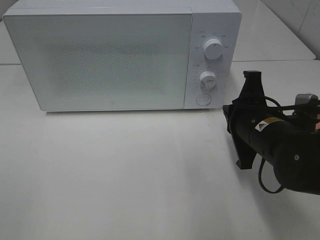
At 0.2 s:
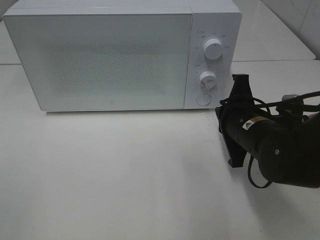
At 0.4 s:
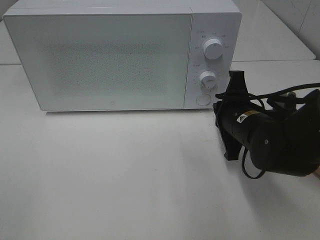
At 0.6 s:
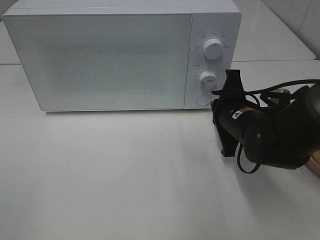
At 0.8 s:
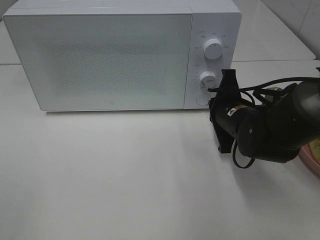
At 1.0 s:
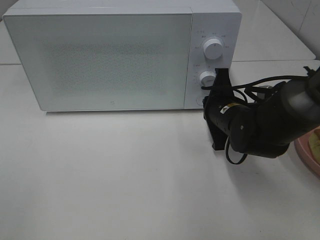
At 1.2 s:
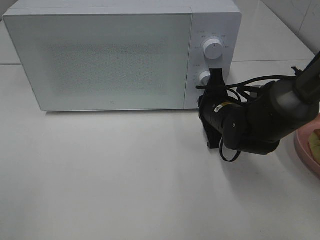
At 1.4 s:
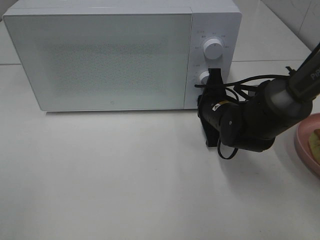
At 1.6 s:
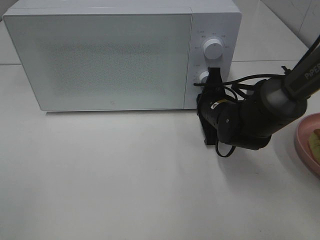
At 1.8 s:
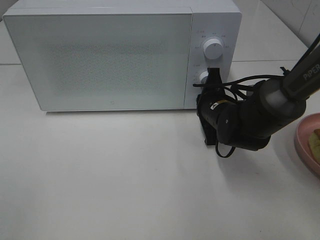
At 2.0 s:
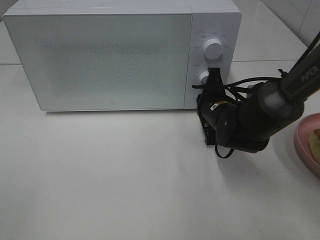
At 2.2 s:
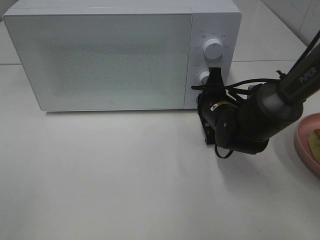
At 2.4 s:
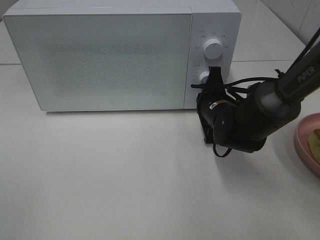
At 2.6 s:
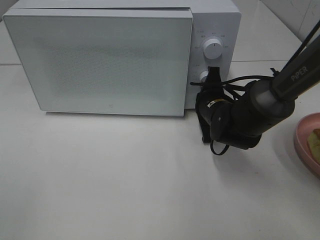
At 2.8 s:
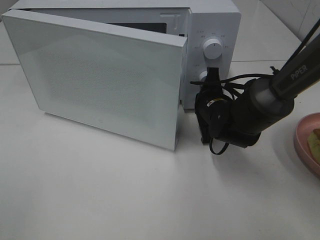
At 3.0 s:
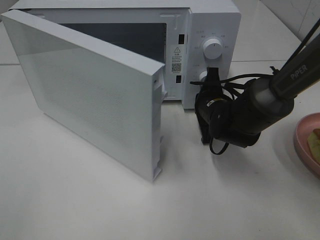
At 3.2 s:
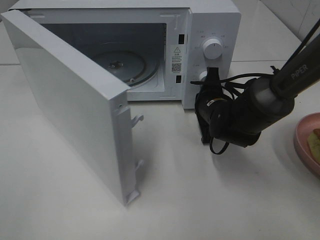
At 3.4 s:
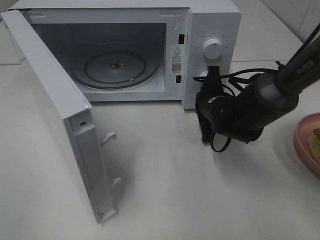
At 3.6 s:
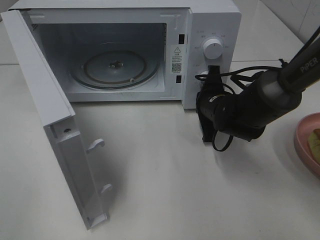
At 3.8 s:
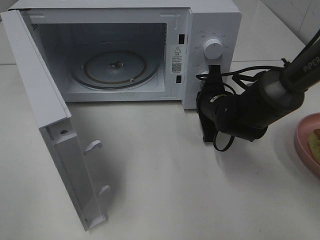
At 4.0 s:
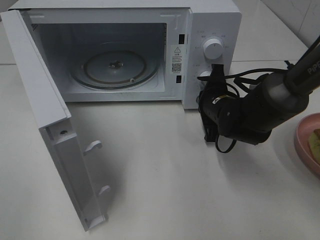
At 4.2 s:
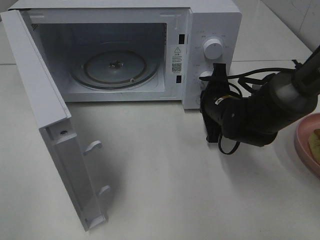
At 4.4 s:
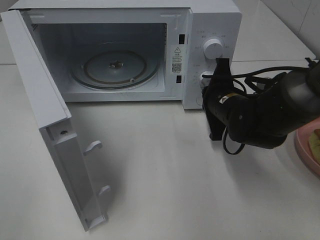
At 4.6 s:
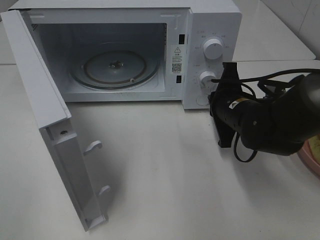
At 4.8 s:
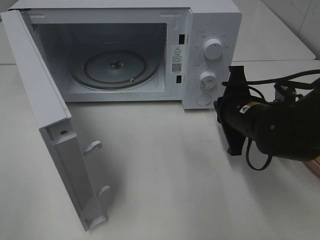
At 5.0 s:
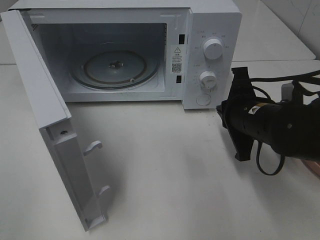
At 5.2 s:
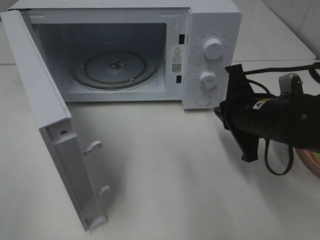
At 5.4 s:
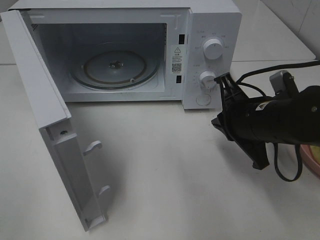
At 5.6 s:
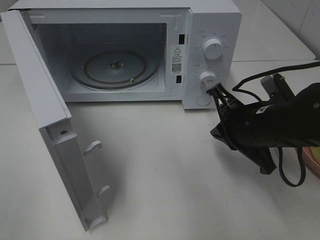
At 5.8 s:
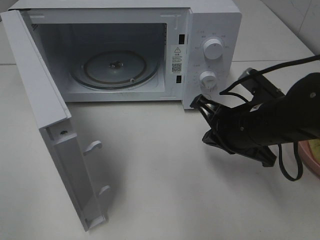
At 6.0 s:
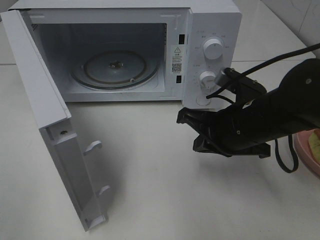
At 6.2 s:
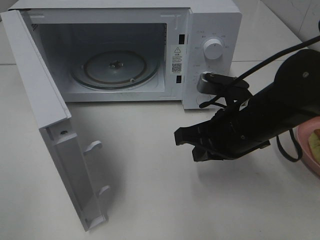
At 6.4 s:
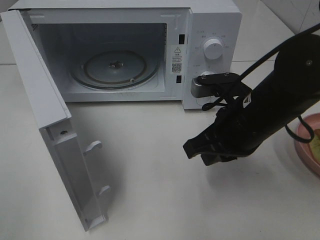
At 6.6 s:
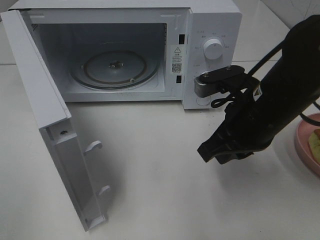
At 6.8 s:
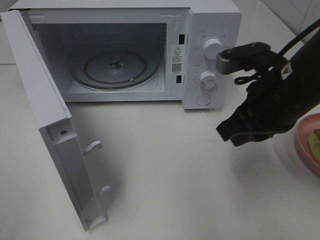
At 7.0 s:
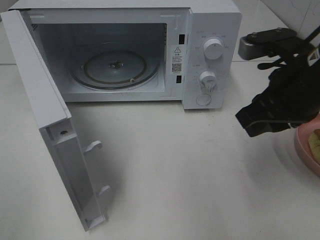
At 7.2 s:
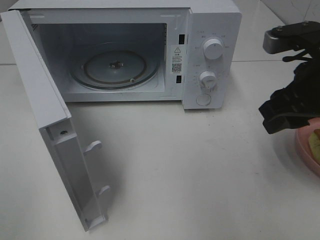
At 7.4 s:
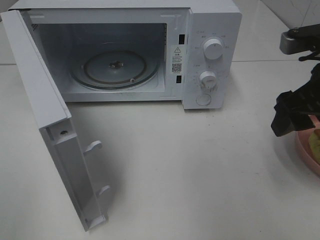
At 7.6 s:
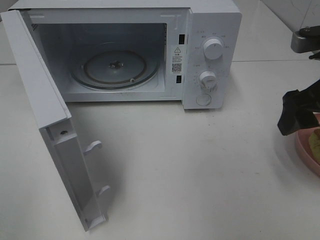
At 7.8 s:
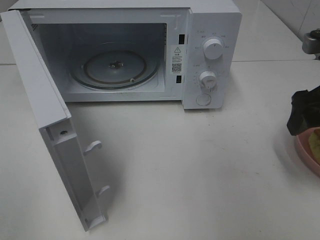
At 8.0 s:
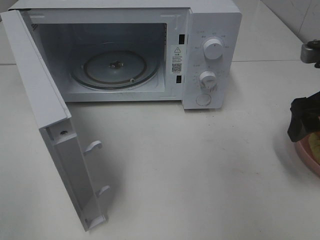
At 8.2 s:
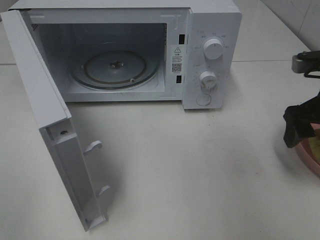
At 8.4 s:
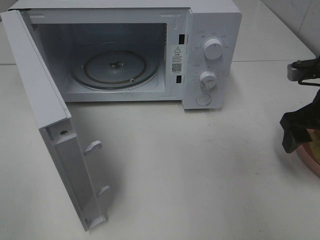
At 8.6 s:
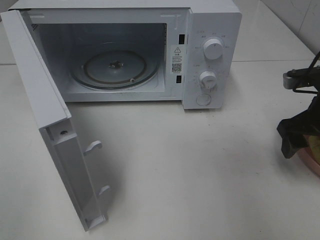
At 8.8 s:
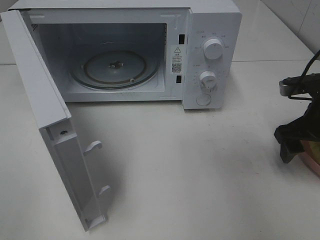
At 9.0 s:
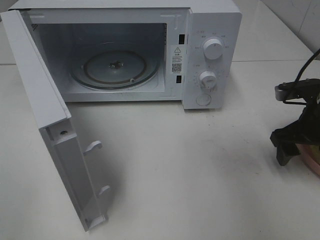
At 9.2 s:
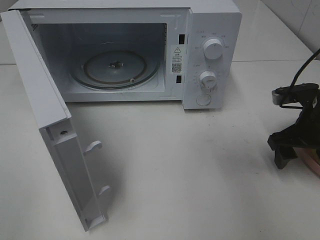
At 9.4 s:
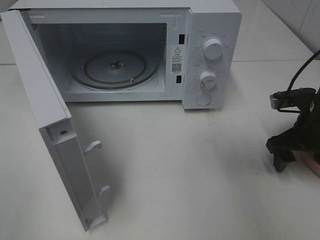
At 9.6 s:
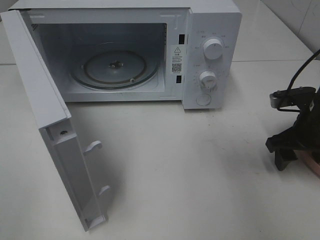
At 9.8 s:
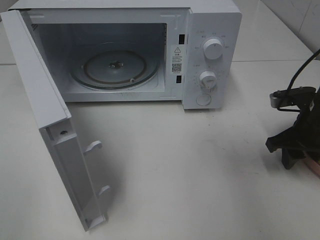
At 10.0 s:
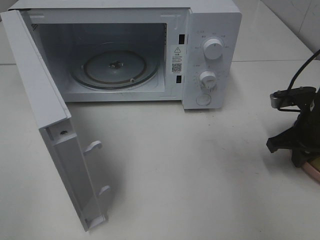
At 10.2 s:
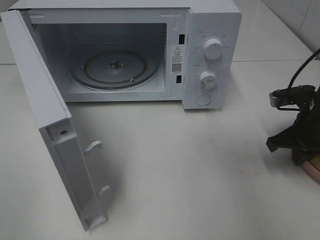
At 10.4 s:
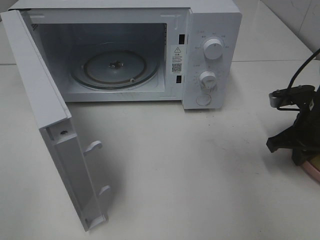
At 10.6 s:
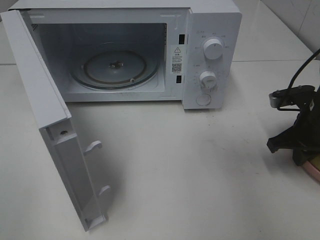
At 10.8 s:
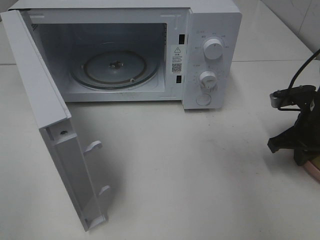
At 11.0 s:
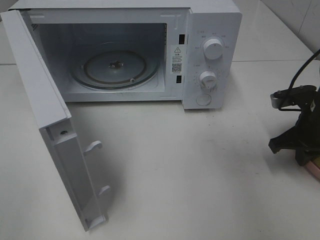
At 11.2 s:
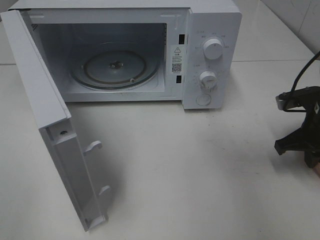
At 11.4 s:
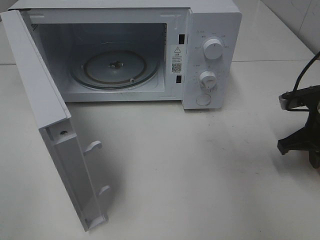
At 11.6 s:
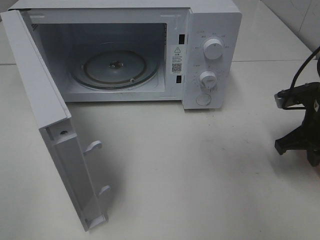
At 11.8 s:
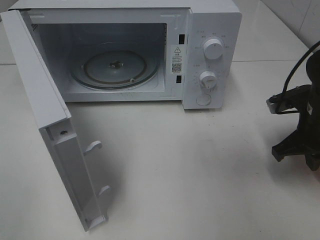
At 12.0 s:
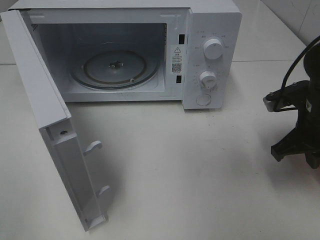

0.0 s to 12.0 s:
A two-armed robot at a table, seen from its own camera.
Task of the whole recording: Heat Sandwich.
Step, 0.0 to 4.6 s: Right hand: press the switch.
Step, 4.8 to 10.4 s: Right hand: grab the plate with the sandwich.
0.0 to 1.6 s: The right gripper goes approximately 10 cm forward.
4.4 to 6.0 s: The right gripper is displaced backward by some 10 cm.
6.0 to 7.6 s: The right gripper heads to the right and upward, covering approximately 15 cm, and opens.
7.6 to 9.0 s: The right gripper travels downward and forward by about 10 cm.
9.0 to 10.4 s: The right gripper closes up.
10.4 to 12.0 s: The right gripper ends up about 5 cm from where it was.

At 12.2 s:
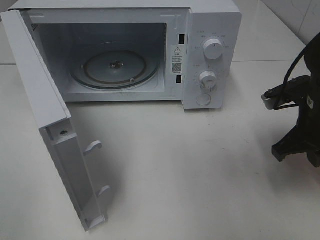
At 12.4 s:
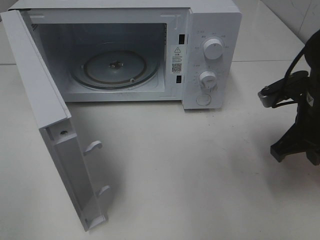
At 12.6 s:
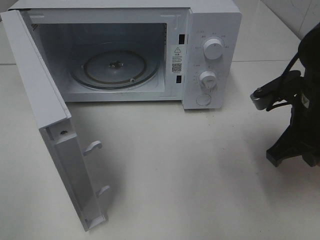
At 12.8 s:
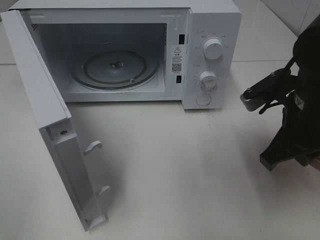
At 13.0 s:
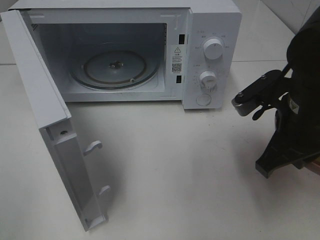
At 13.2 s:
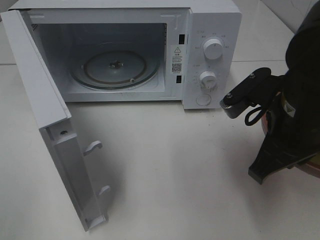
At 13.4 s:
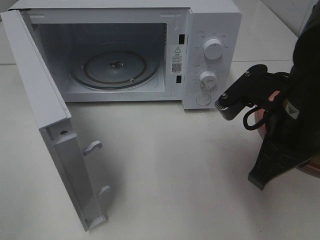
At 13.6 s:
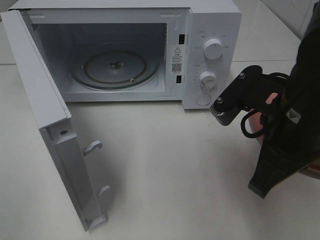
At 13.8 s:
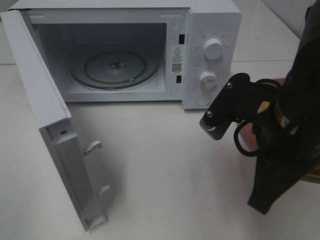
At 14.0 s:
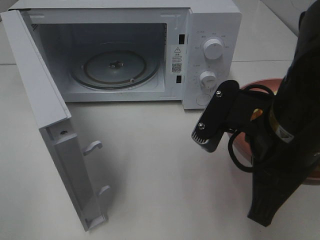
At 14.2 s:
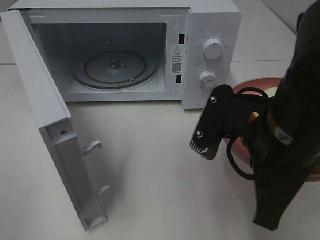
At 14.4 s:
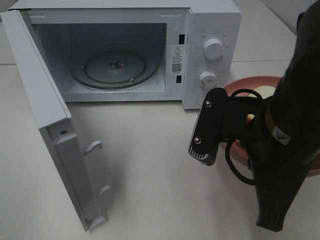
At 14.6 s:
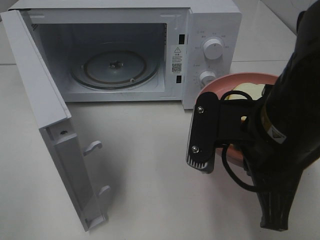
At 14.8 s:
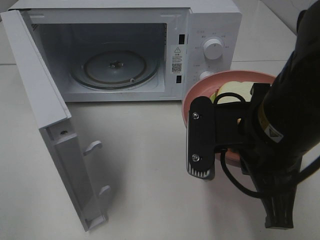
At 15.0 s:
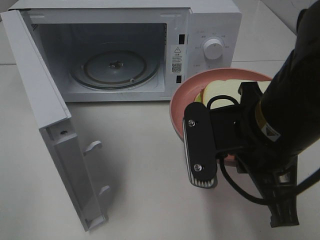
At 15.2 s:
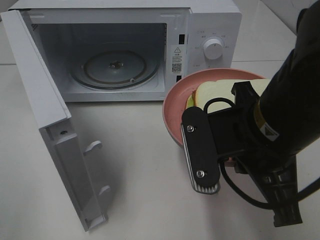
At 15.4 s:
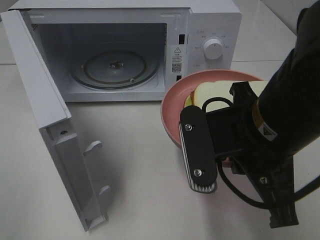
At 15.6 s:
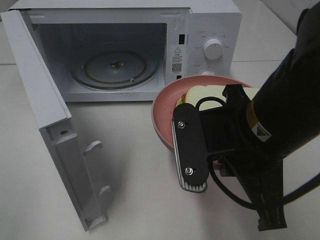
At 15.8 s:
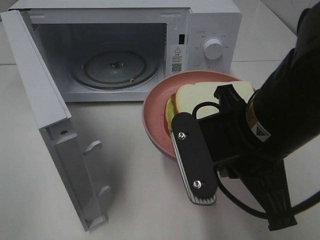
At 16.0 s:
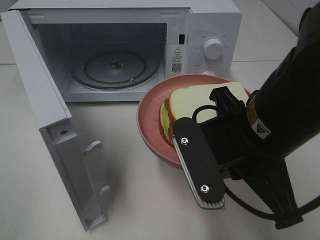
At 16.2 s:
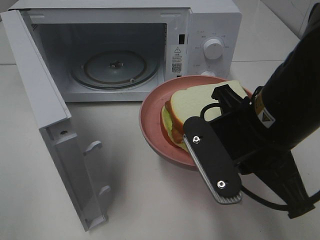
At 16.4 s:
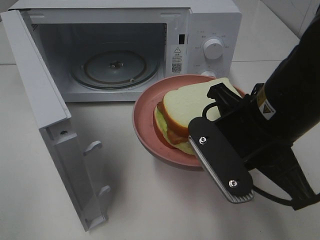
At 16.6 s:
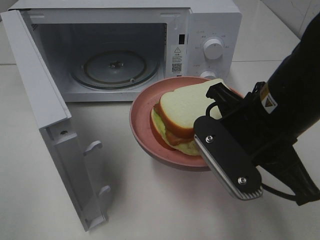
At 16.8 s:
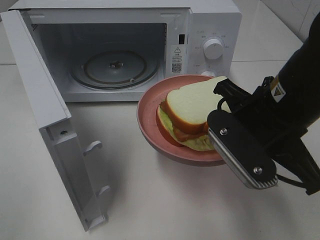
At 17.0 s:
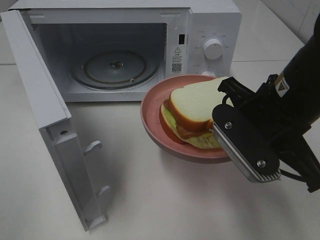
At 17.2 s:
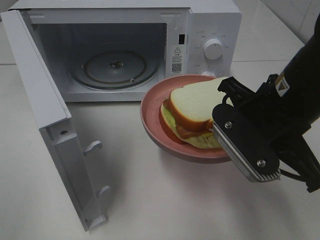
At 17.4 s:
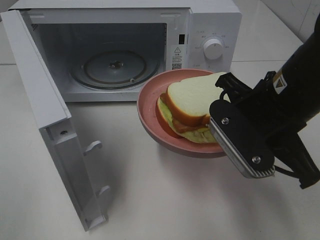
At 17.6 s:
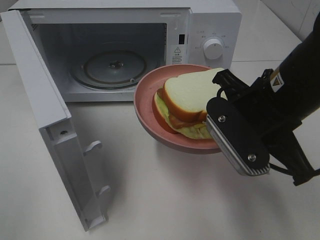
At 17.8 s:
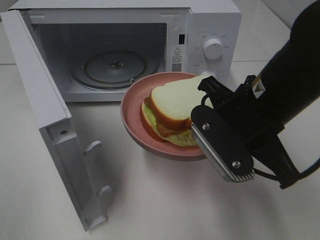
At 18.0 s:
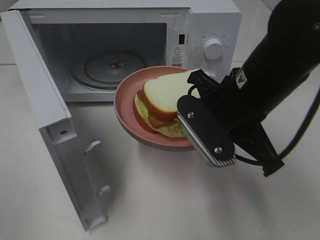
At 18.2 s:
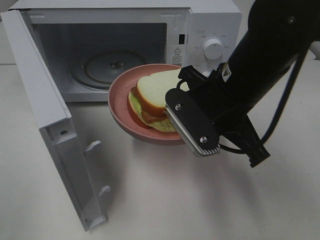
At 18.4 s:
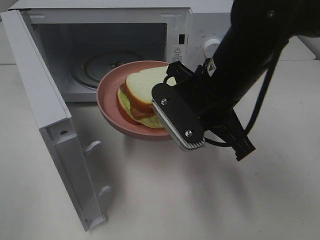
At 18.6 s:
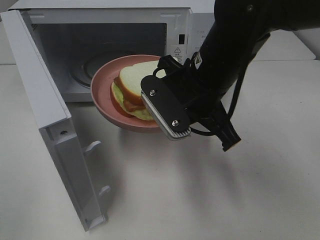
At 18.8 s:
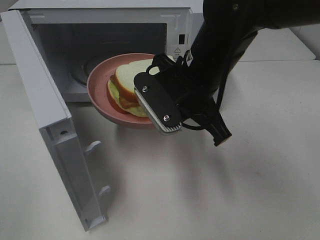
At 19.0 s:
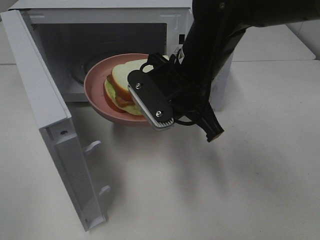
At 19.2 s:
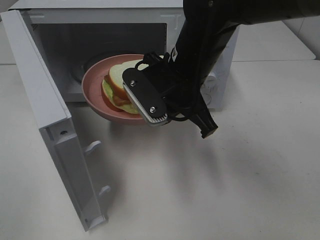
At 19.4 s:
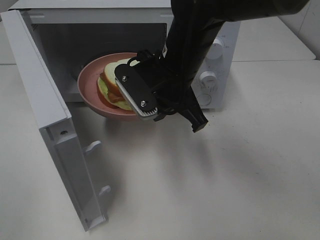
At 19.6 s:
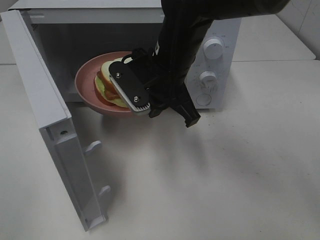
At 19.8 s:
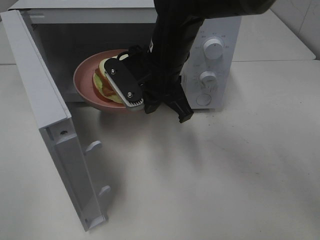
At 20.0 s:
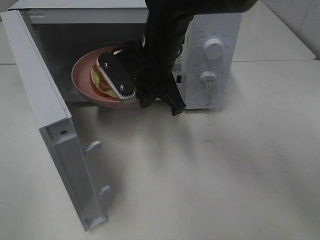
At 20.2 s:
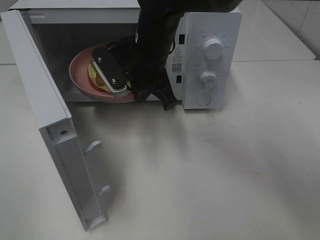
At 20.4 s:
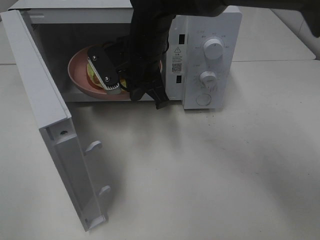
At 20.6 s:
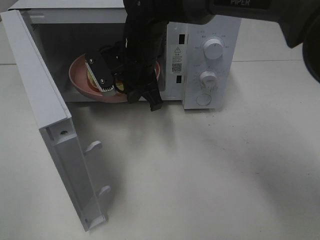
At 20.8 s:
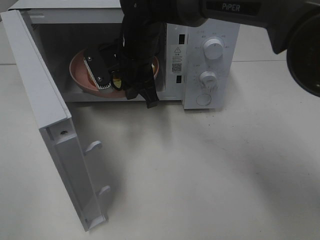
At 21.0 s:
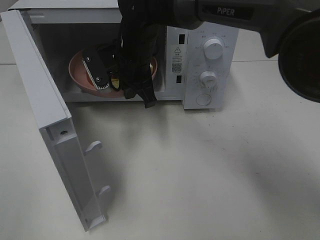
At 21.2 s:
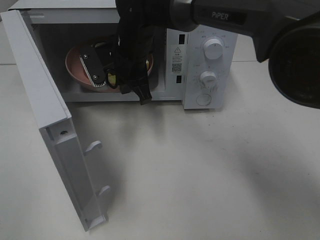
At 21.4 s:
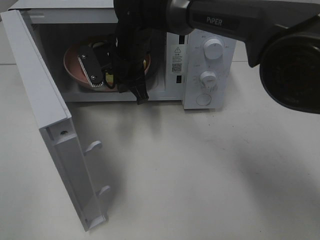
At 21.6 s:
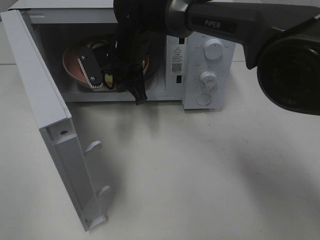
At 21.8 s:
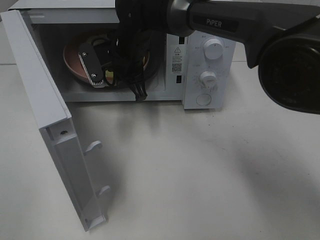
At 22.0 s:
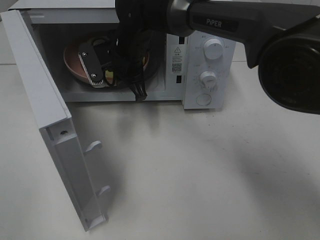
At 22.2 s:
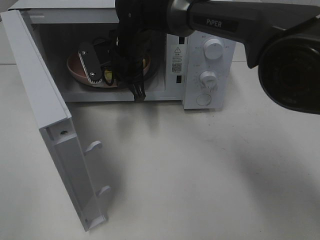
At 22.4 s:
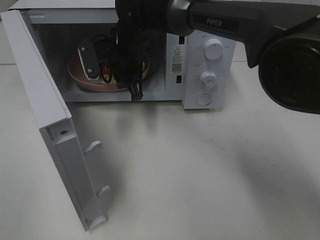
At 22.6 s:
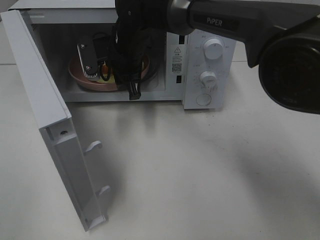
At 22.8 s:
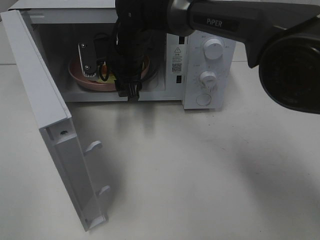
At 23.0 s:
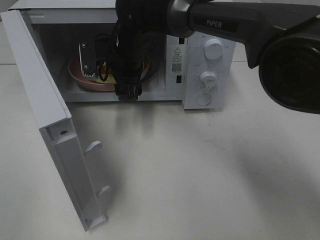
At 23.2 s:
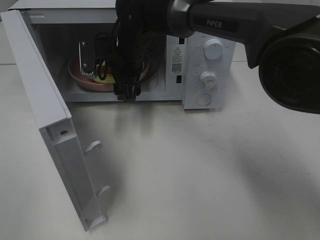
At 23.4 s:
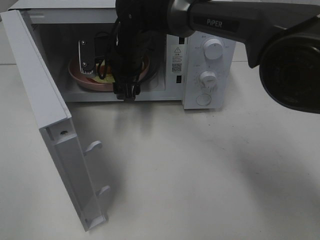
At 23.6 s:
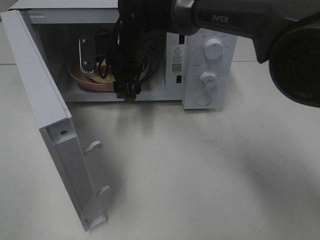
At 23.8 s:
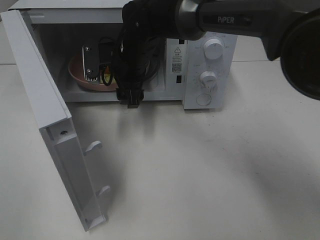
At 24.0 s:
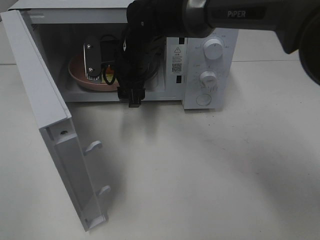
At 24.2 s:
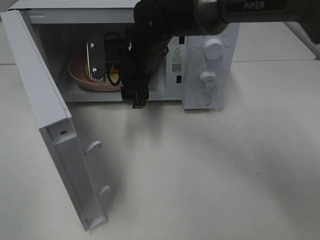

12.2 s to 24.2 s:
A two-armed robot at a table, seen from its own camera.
Task of the whole recording: Heat Sandwich.
Step, 12.2 to 23.2 s: Right hand: place the plate in the microwave.
12.2 to 13.8 s: The right gripper heads to the left, backward and upward, covering some 15 cm.
16.6 to 18.2 s: The right gripper is displaced forward by about 5 cm.
18.2 to 19.8 s: The right gripper heads forward and to the left, covering approximately 10 cm.
19.8 to 21.2 s: The right gripper is displaced forward and to the left by some 10 cm.
21.2 to 22.6 s: The right gripper opens.
22.6 to 24.2 s: The right gripper opens its fingers.
